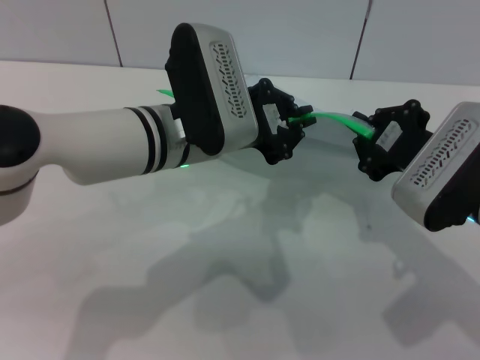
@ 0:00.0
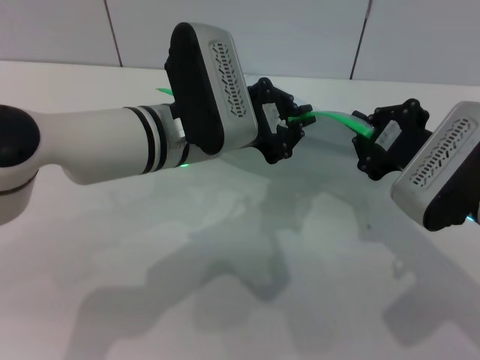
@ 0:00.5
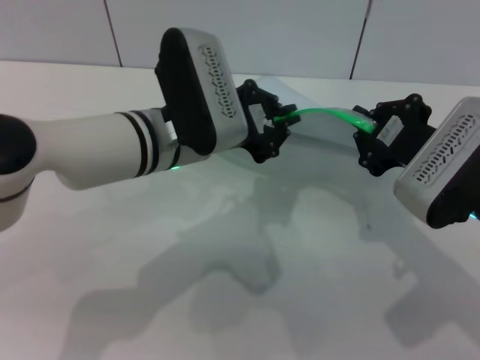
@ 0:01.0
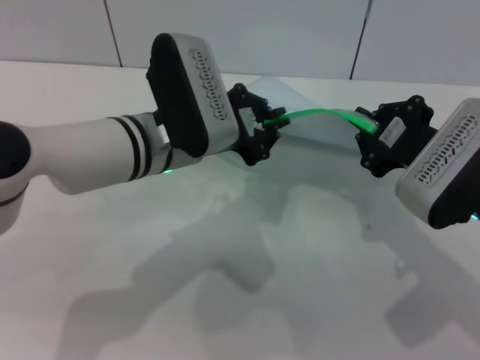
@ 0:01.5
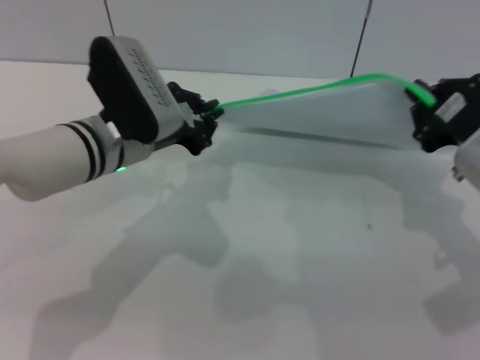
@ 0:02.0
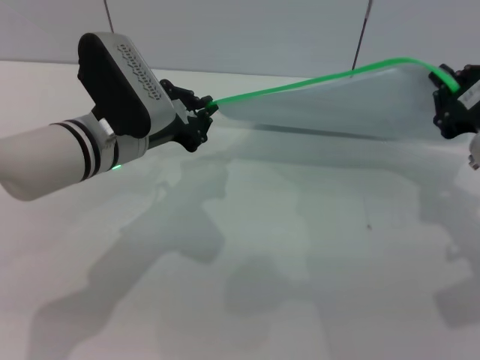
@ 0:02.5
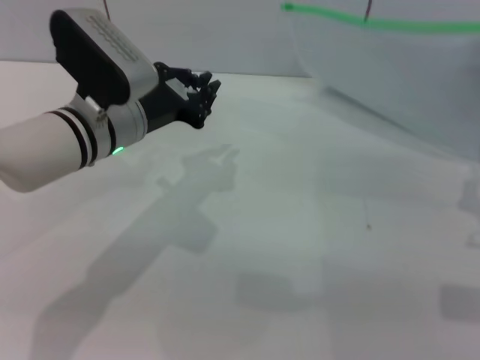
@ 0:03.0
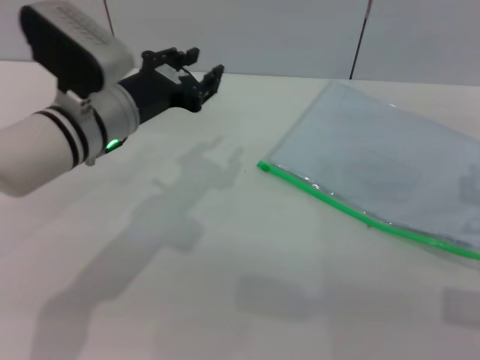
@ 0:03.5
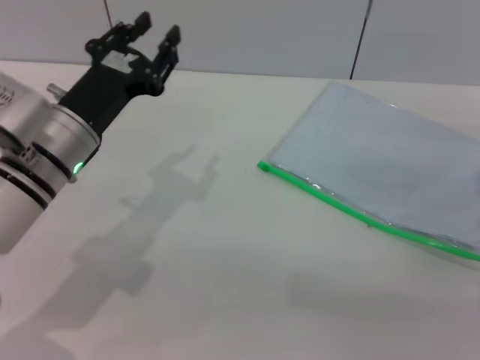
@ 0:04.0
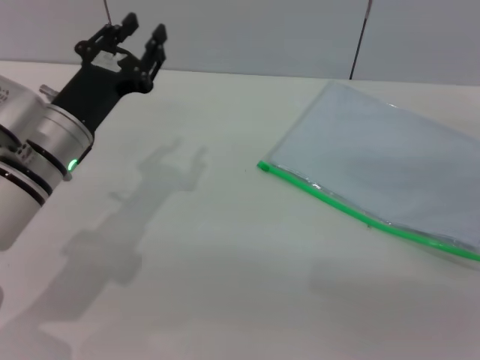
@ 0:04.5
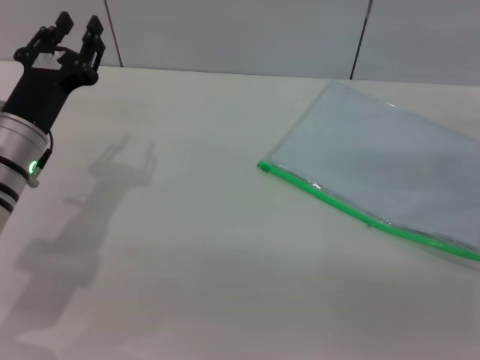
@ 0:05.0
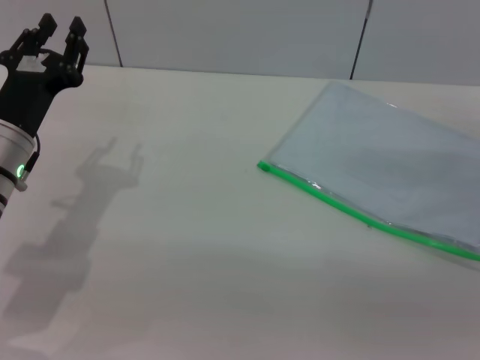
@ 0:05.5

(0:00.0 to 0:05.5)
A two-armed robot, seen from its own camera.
Step, 0:00.0 - 0:02.5: Pulling up the zipper on the transparent plastic bag with the left gripper to close it.
0:00.0 - 0:02.0: The left gripper is displaced to the left by approximately 5 cm.
0:02.0 - 0:03.5: The left gripper opens up. Meanwhile the right gripper opens its fingers.
0:03.5 - 0:05.5: The right gripper shifts roughly 5 cm to the right, while the left gripper goes roughly 10 cm to the left.
